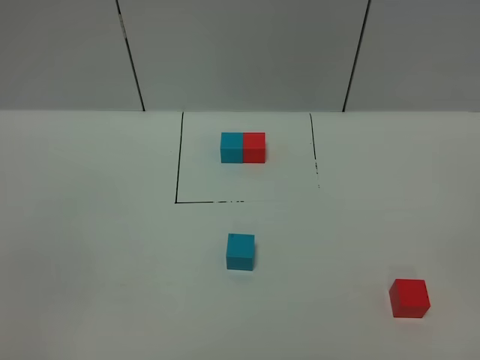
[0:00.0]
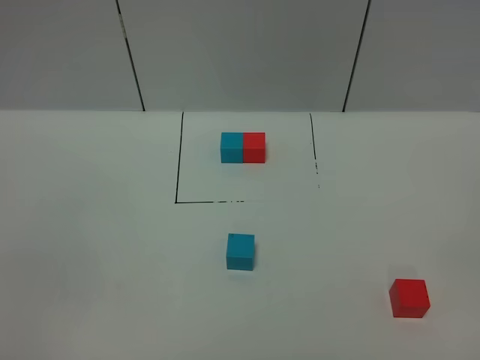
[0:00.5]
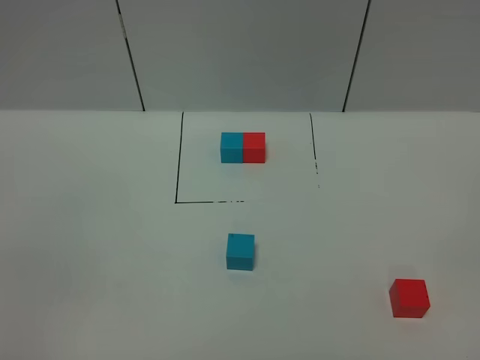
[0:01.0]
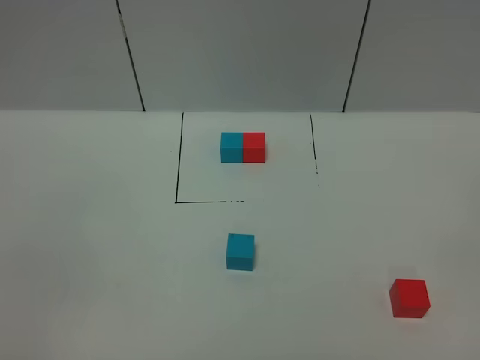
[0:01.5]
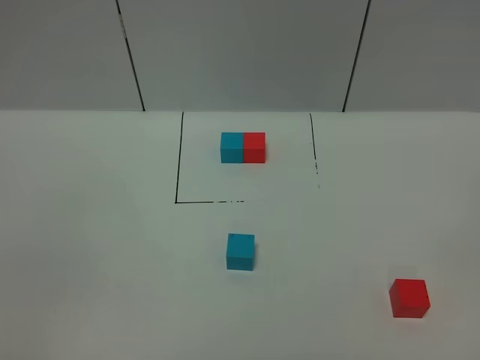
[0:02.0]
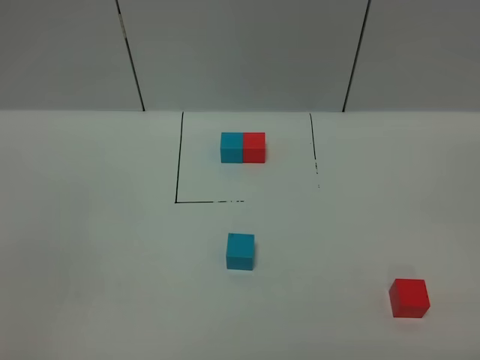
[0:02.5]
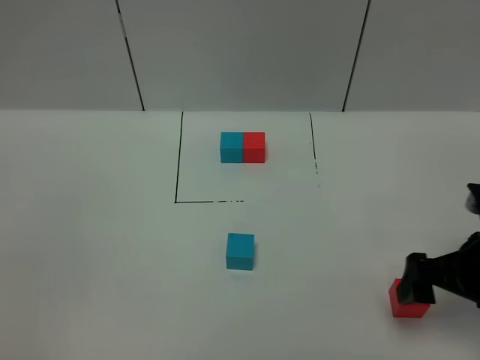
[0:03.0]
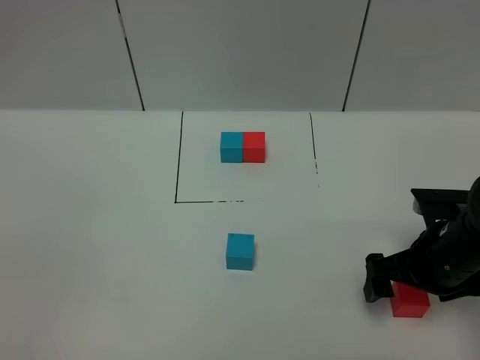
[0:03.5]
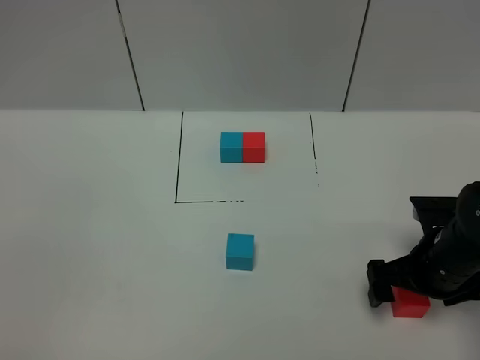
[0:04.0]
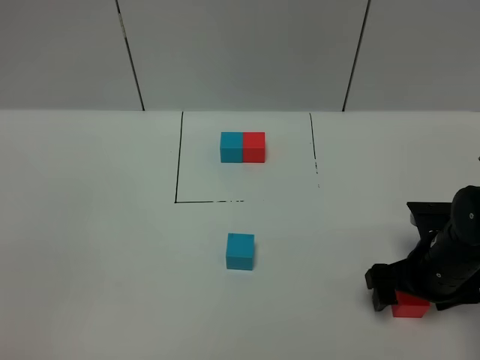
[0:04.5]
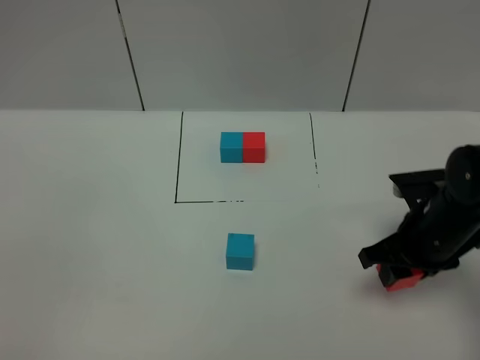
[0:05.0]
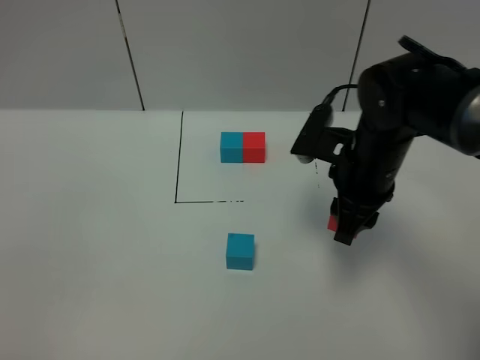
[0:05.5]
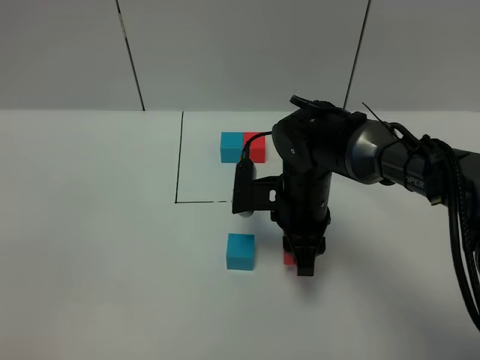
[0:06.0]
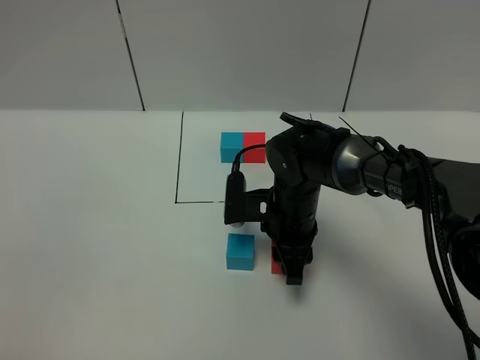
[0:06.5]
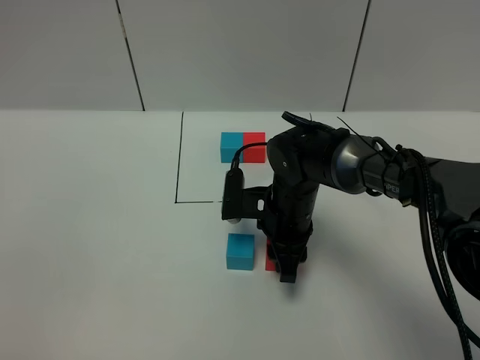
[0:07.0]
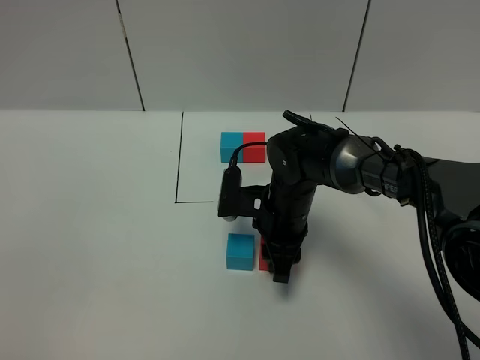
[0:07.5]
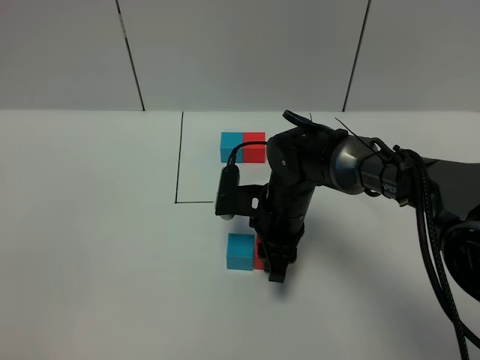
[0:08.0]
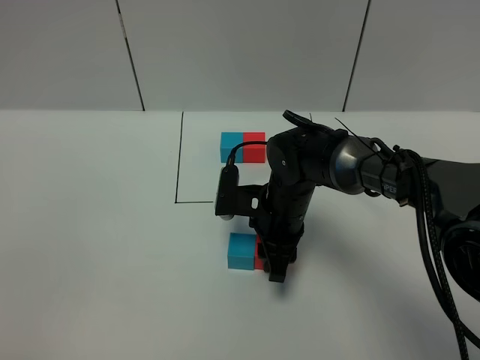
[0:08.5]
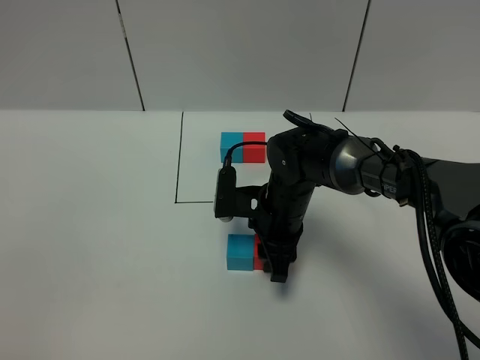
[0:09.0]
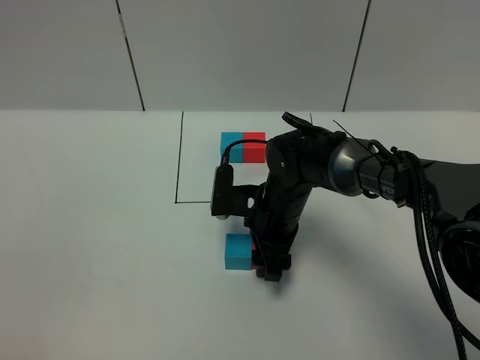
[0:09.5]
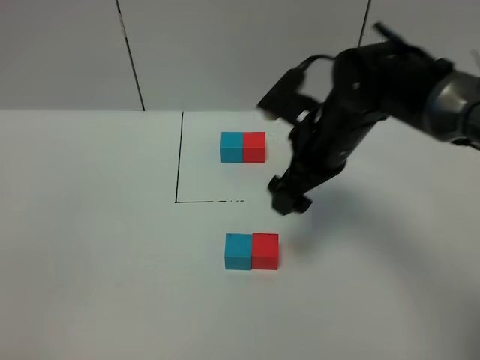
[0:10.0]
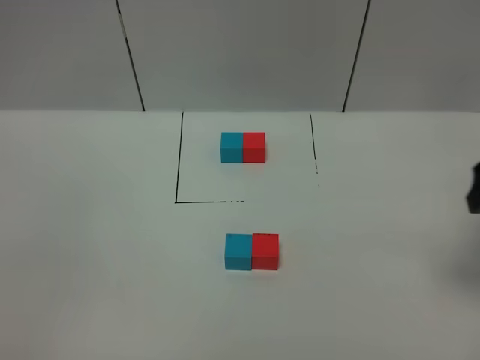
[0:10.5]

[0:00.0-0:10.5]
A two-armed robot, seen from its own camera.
Task of the whole recording: According to the building block template in front, assemble the scattered blocks together.
Step, 0:00.0 to 0:09.5: Put the red cube on the right of the blue cube.
0:00.0 to 0:02.0: The two grippers keep their place.
0:02.0 to 0:04.0: The right gripper shifts some 30 cm forward and downward.
0:04.0 to 0:06.5: The right gripper shifts about 20 cm to the left and forward, and closes up.
0:06.5 to 0:08.5: The grippers make only small movements.
0:08.5 to 0:10.5: The right gripper travels to the right, upward and backward by about 35 cm, and opens.

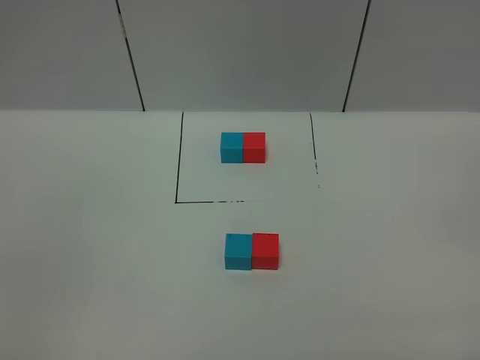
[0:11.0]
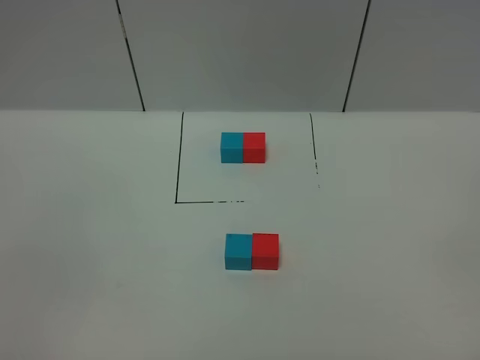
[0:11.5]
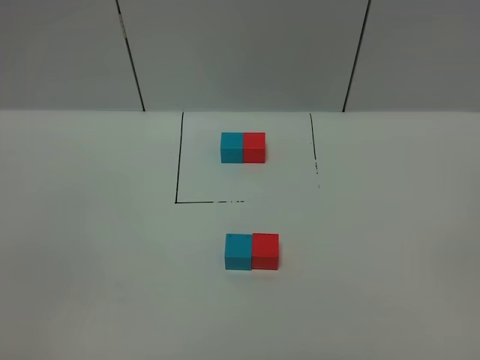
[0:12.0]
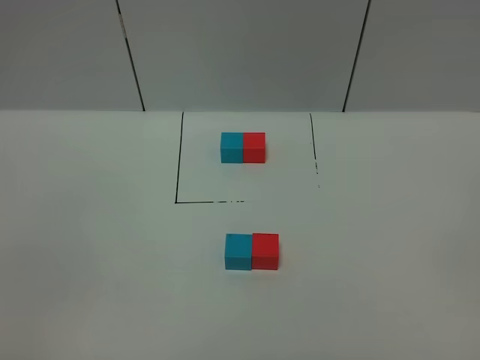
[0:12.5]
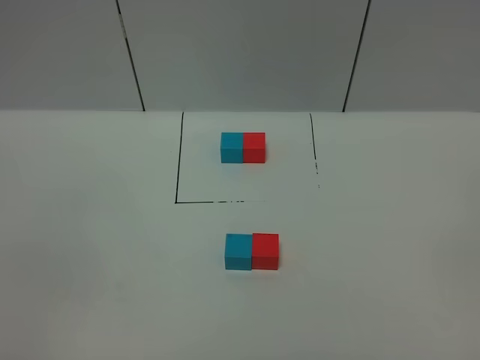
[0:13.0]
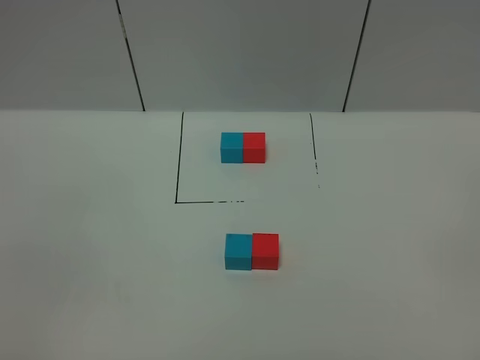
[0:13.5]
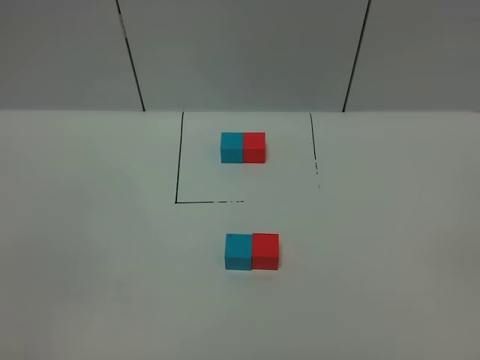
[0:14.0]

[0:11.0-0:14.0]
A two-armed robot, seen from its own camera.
Task of the whole recording: According to the building block template in front, assemble the scattered blocks together.
0:12.5 to 0:14.0: Neither gripper changes place.
